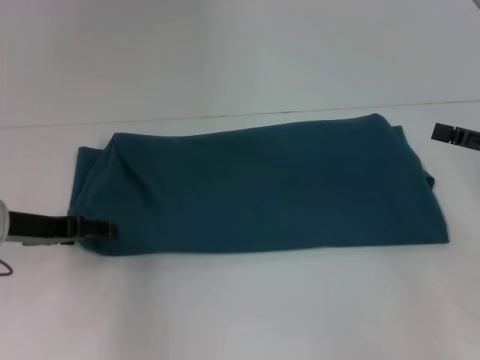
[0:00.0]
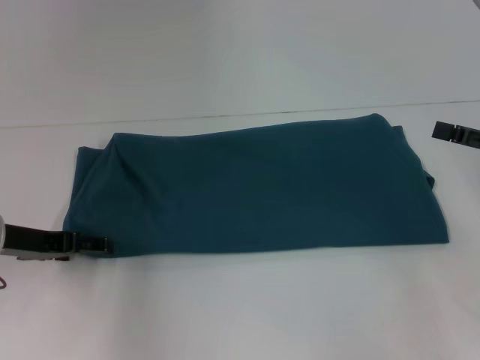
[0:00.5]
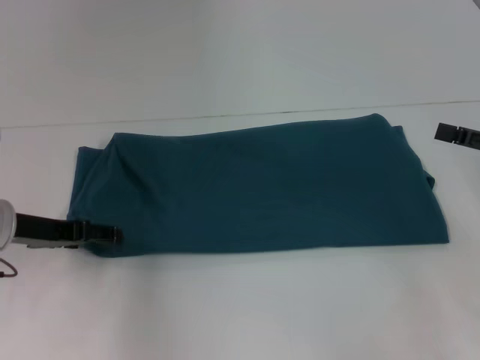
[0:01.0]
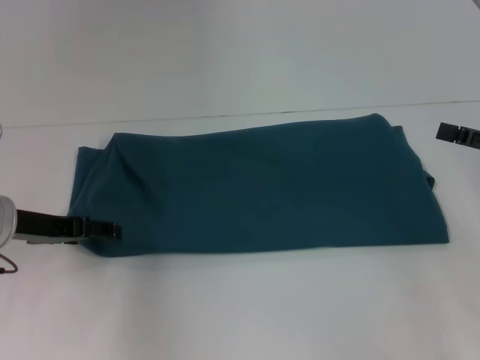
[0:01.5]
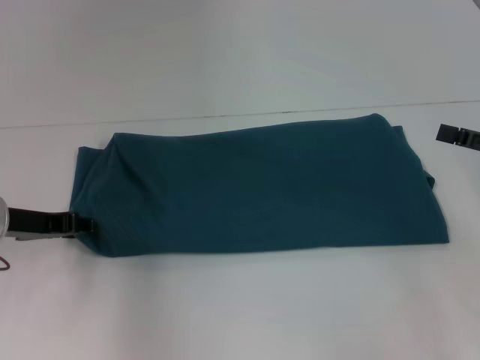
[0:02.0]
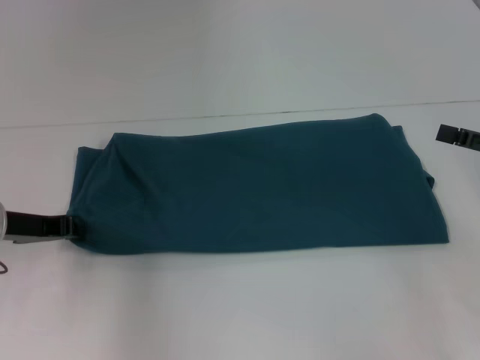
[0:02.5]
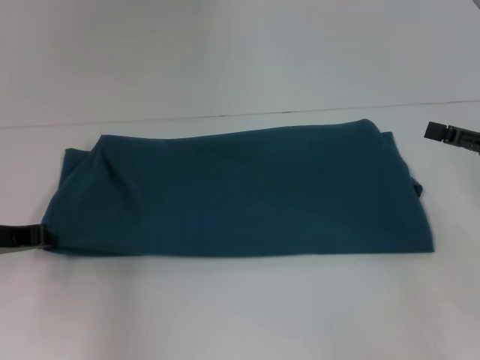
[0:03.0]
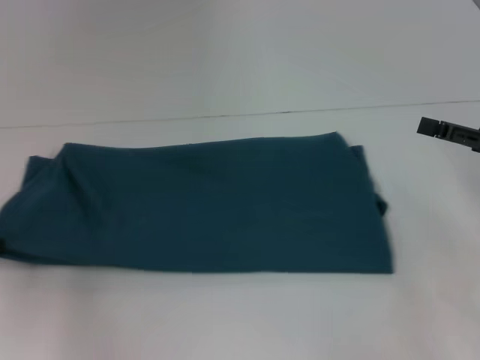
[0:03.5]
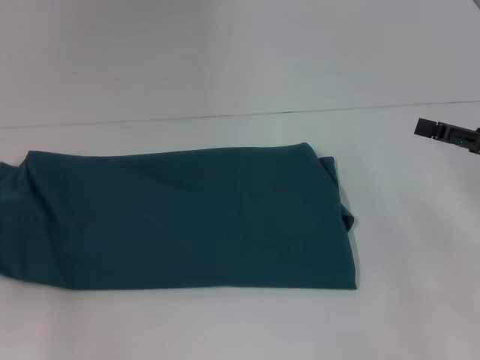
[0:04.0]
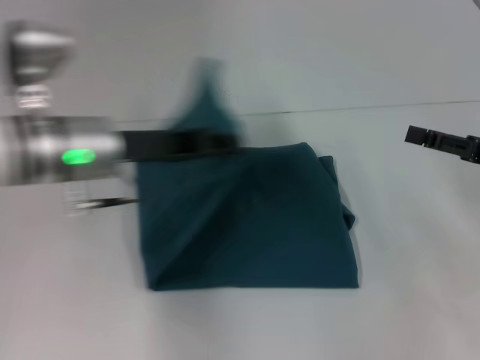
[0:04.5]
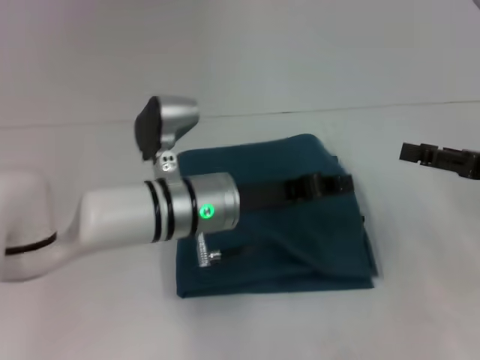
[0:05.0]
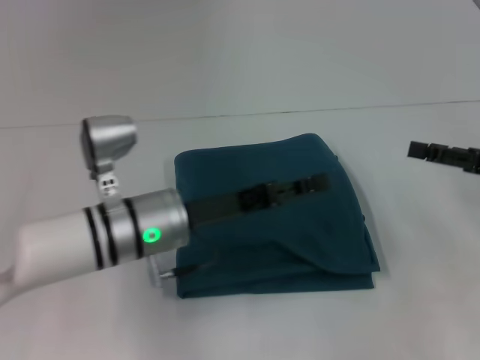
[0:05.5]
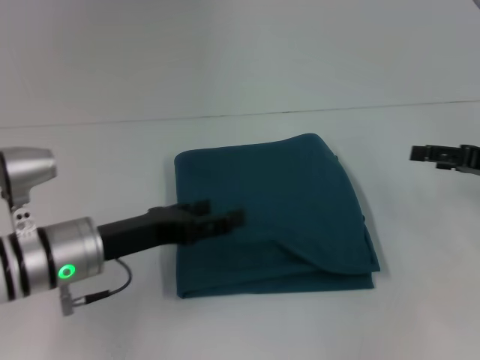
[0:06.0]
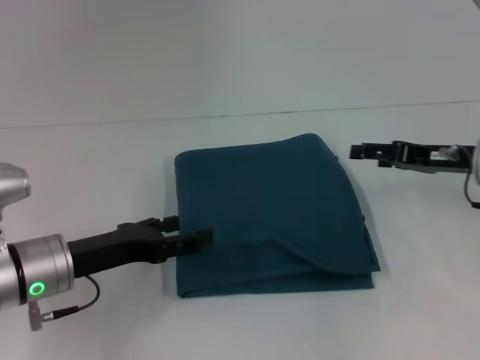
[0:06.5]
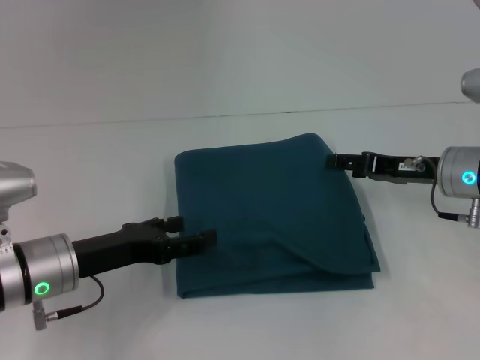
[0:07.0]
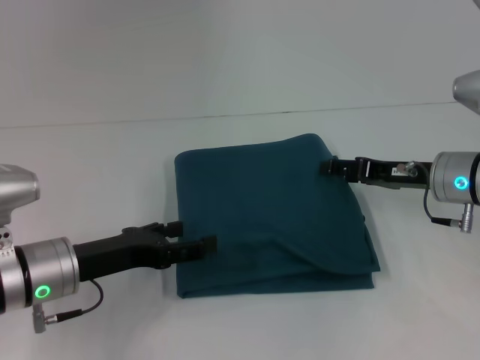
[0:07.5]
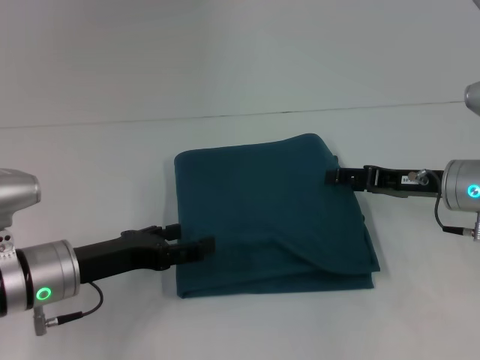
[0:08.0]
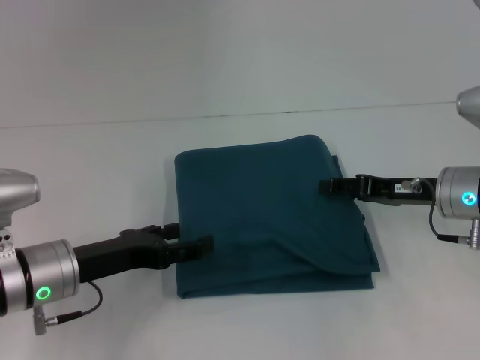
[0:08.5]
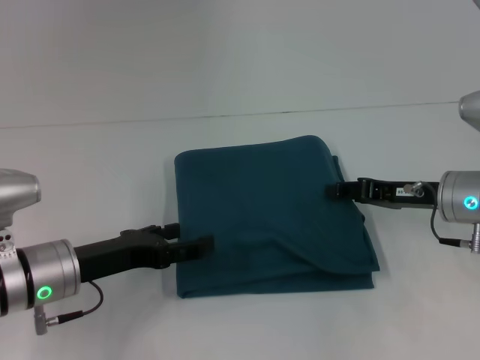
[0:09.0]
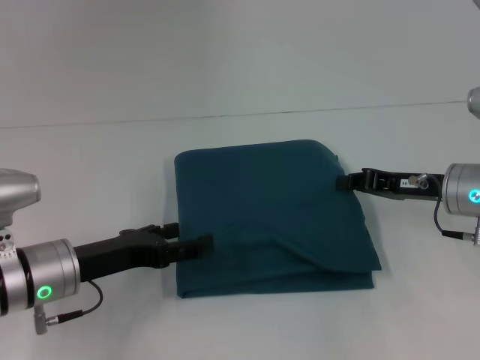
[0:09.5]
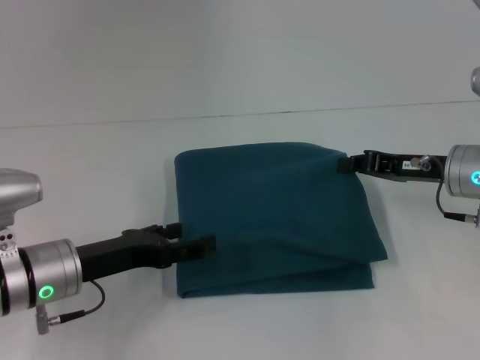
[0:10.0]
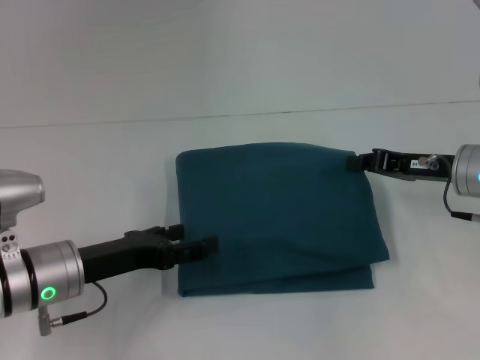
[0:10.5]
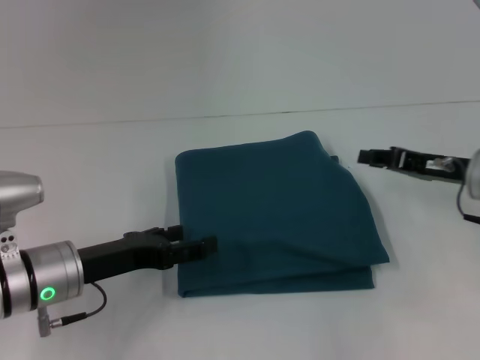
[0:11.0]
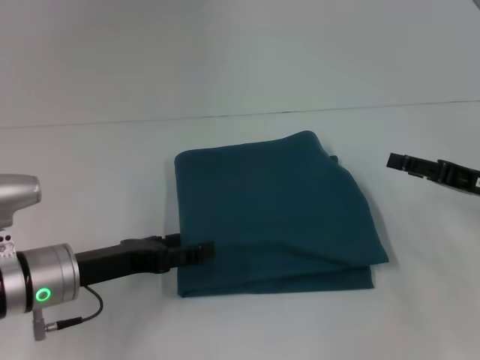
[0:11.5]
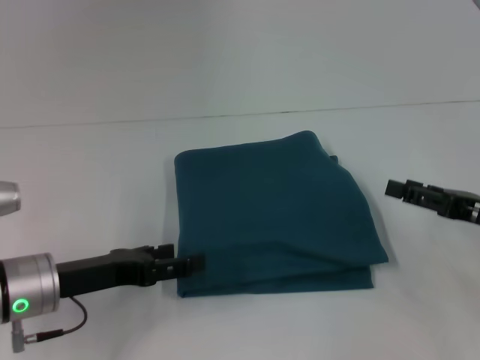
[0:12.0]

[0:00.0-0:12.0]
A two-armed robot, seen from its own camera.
Step, 0.0 to 5.0 s: Fold the clothes to the left.
0.0 to 2.0 s: Both grippers stay about where they are.
2.0 to 4.0 s: The left gripper goes some 10 cm to the left and backward, and closes.
4.0 to 6.0 s: The left gripper is displaced to the right by some 20 cm, and opens up.
6.0 to 8.0 s: The right gripper goes about 10 cm to the left.
8.0 to 10.0 s: The right gripper closes.
10.0 to 12.0 s: The right gripper goes approximately 10 cm backward and to the right, and opens its fingers.

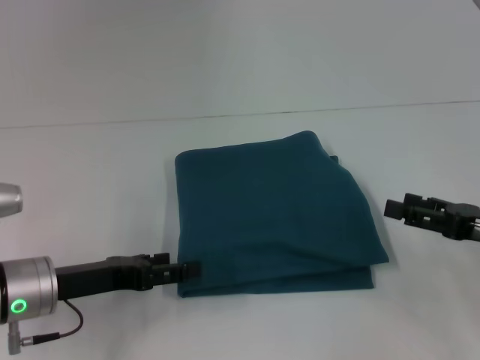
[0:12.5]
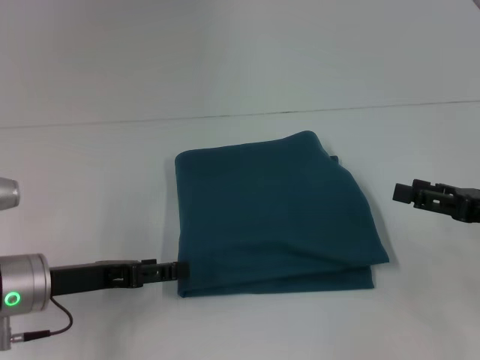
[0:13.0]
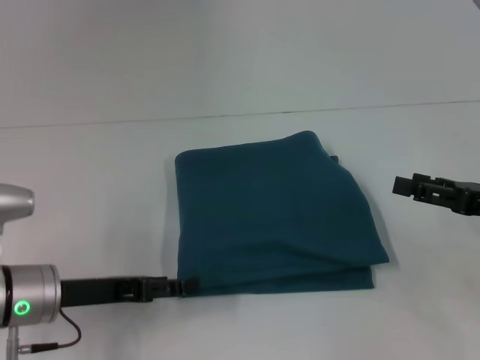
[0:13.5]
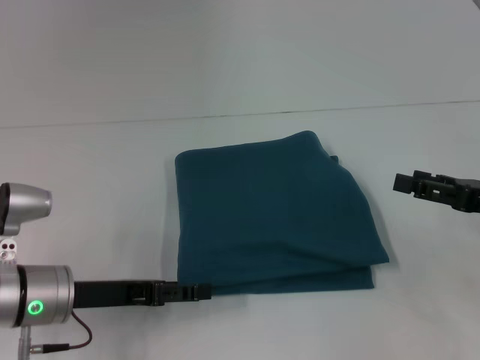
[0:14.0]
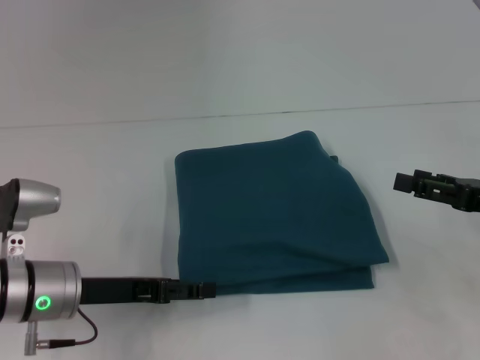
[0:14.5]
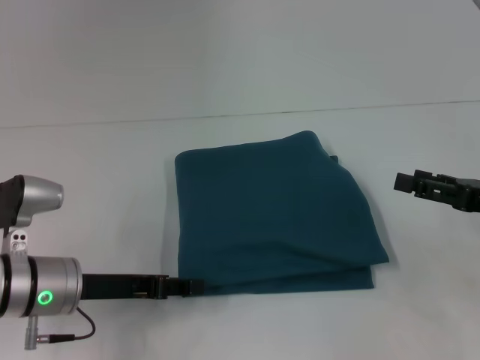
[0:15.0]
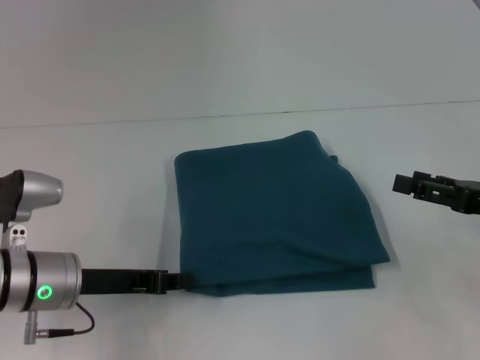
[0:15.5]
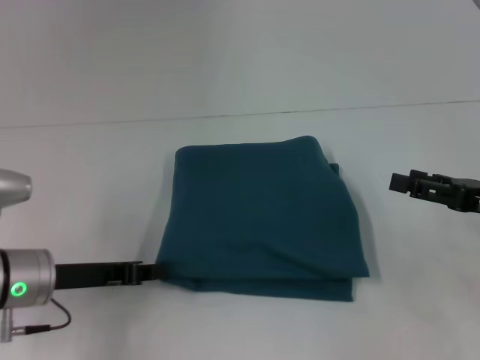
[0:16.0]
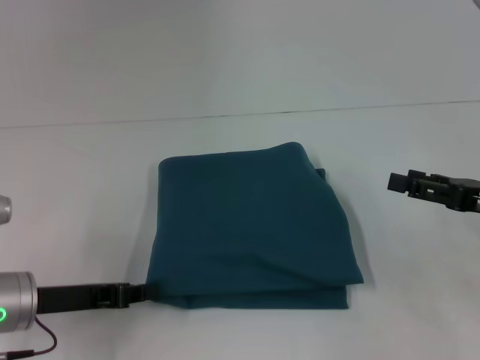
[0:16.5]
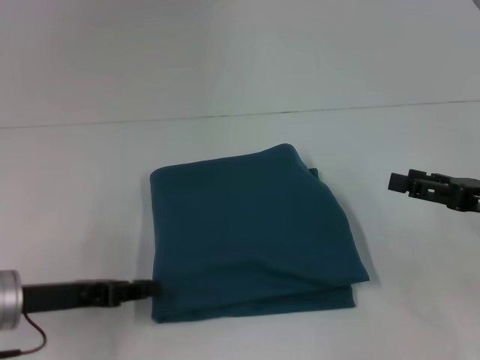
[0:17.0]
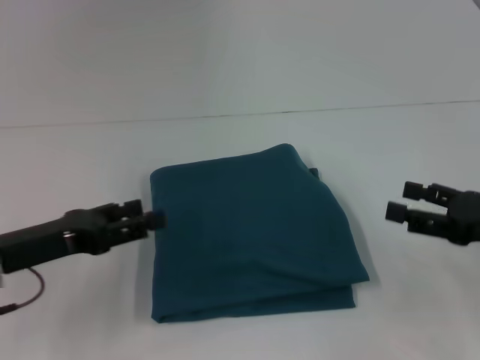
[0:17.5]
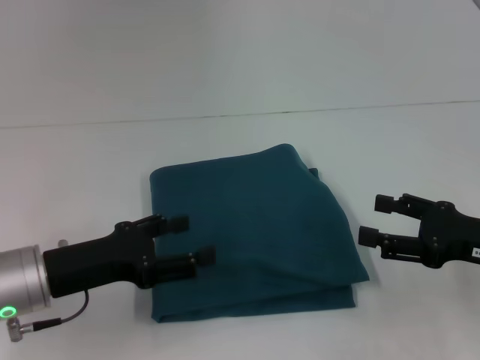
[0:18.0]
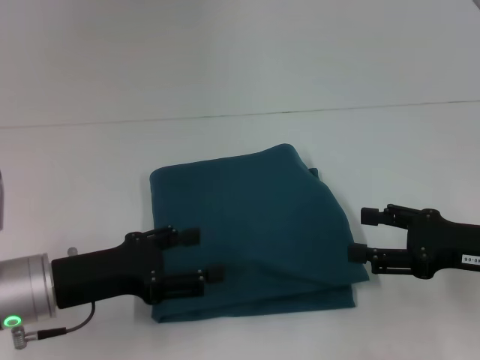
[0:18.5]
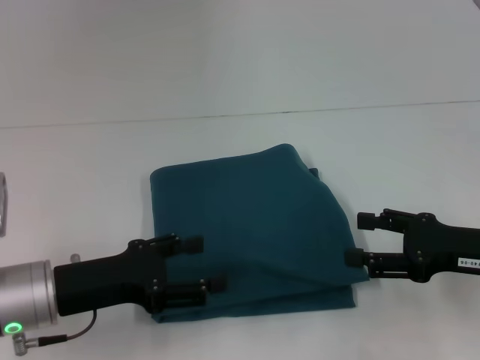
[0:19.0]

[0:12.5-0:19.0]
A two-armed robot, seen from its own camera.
12.5 to 14.5 s: There are only small adjustments of the grippers.
14.5 to 17.0 s: The left gripper ends up approximately 5 cm from where it was, and closes up.
17.0 to 19.0 s: The left gripper opens.

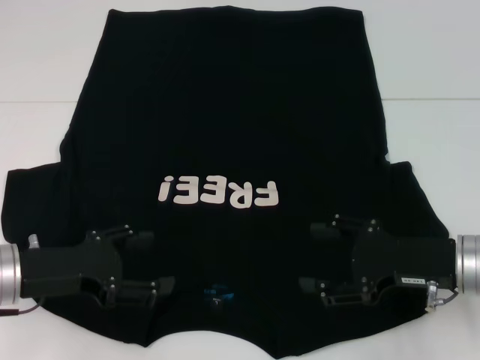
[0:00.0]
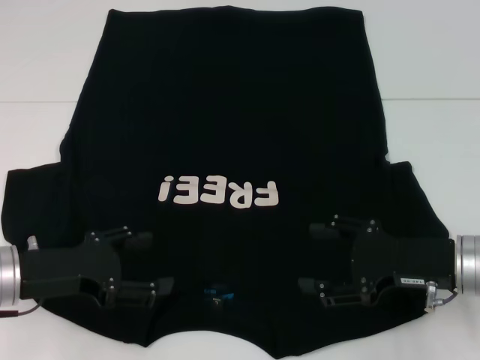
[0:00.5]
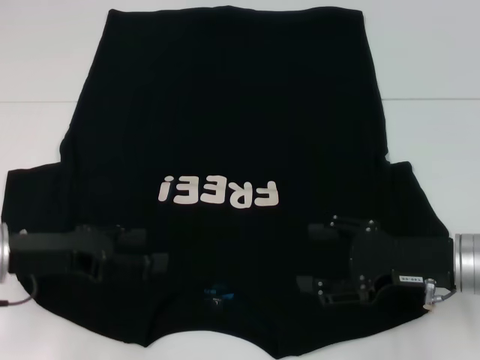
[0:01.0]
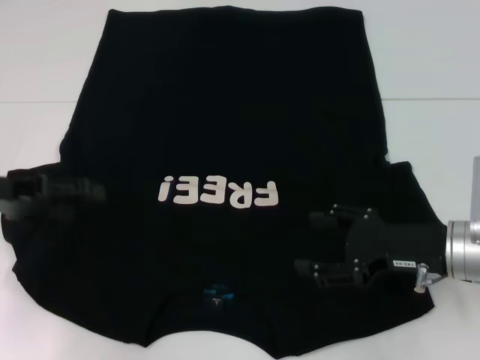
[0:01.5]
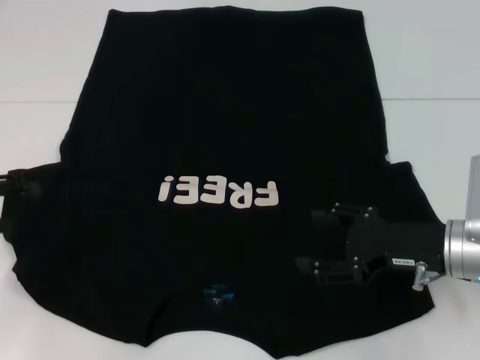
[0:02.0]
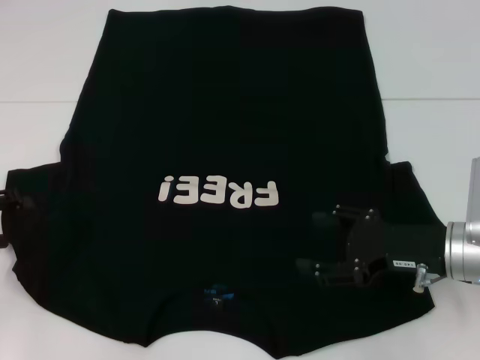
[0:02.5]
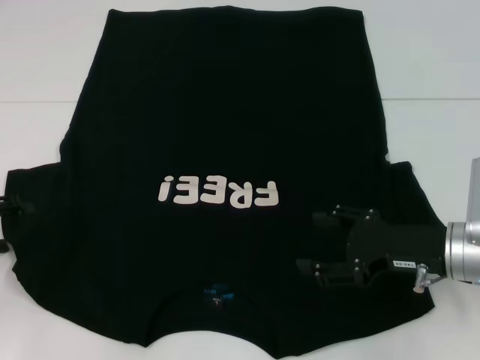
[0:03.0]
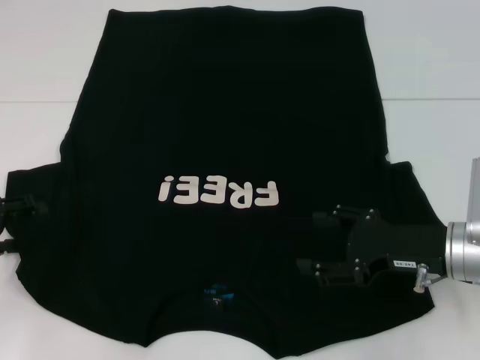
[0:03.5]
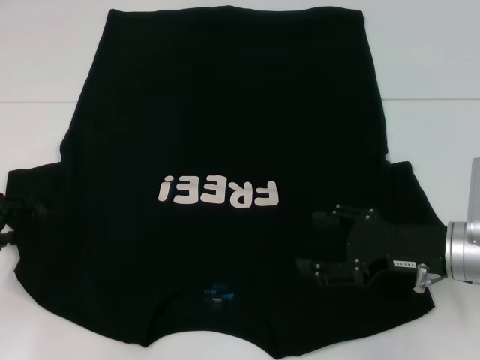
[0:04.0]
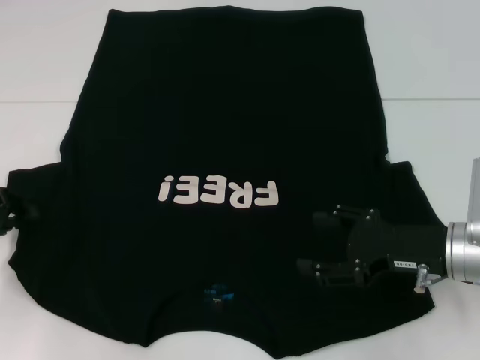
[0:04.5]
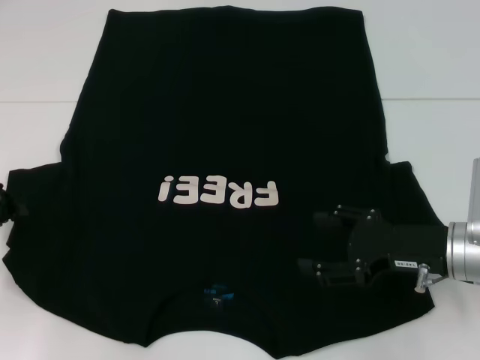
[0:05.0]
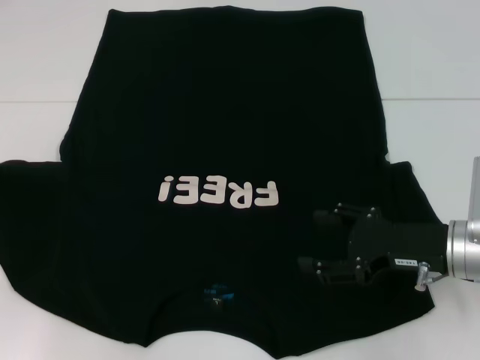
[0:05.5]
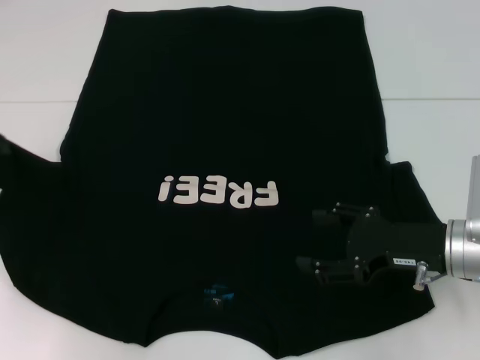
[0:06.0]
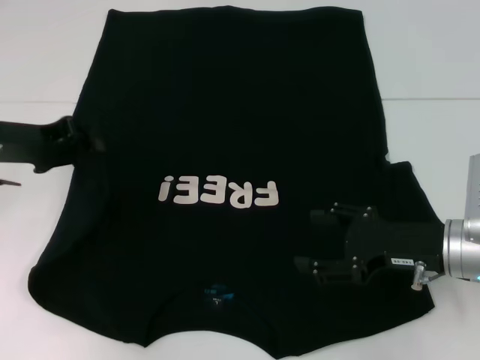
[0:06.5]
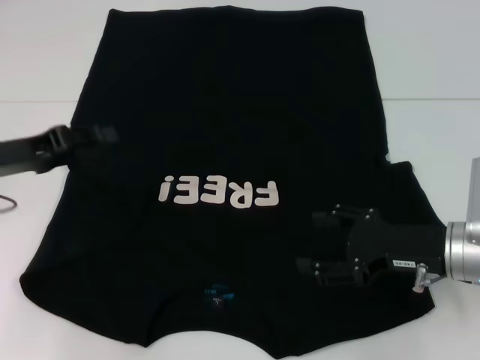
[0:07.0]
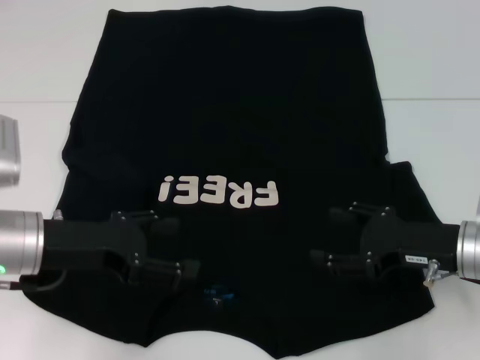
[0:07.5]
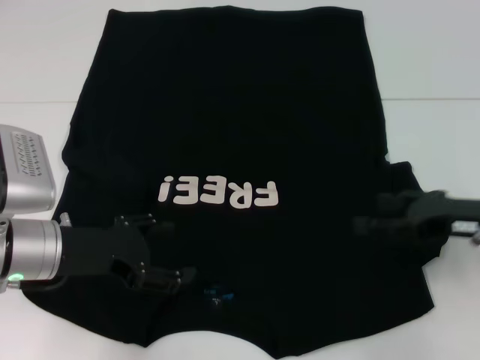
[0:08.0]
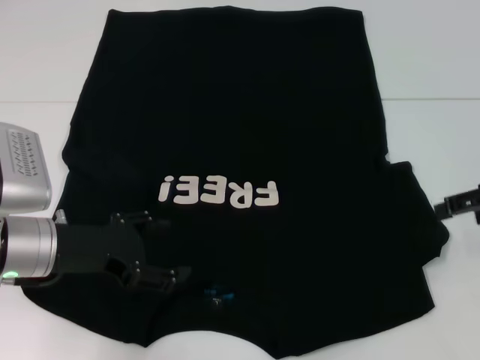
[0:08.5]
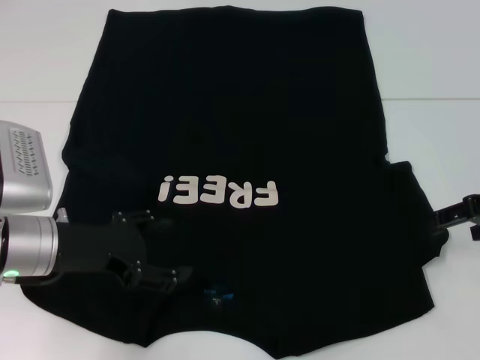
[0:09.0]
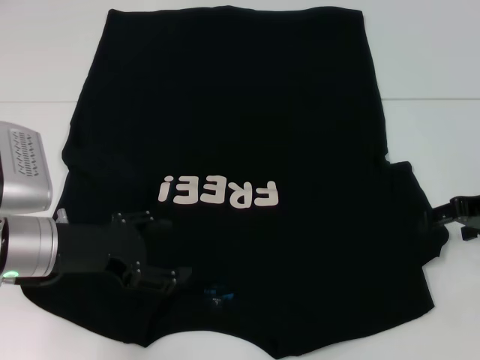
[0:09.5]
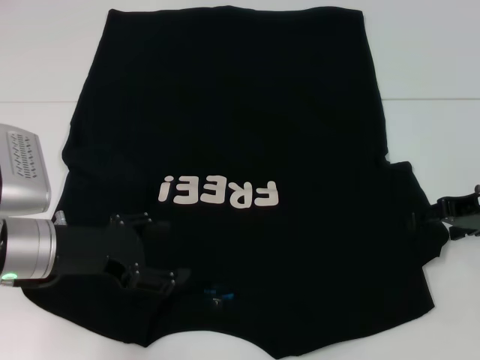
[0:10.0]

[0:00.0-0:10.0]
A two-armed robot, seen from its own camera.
Step, 0.0 to 6.5 s: Fold the bottom left sleeve with your left hand.
0.0 to 2.0 s: The left gripper is displaced to the left and upward by about 15 cm.
2.0 to 4.0 s: The grippers make only small movements.
4.0 to 6.0 s: The left gripper moves upward, about 5 cm, and closes.
6.0 to 8.0 s: The left gripper travels to the right, downward and backward by roughly 15 cm, and opens its fingers. The right gripper shifts about 5 cm to the right.
8.0 to 10.0 s: The right gripper heads forward, covering approximately 5 cm, and reaches about 10 cm upward, then returns.
